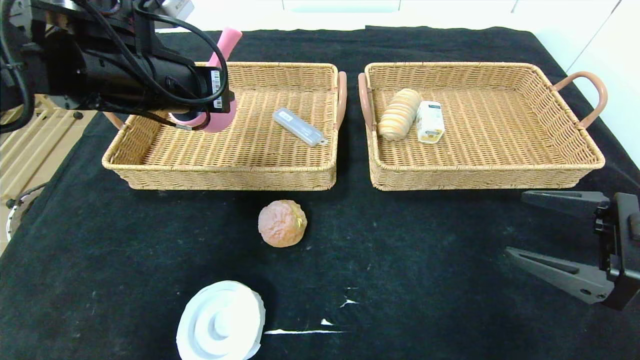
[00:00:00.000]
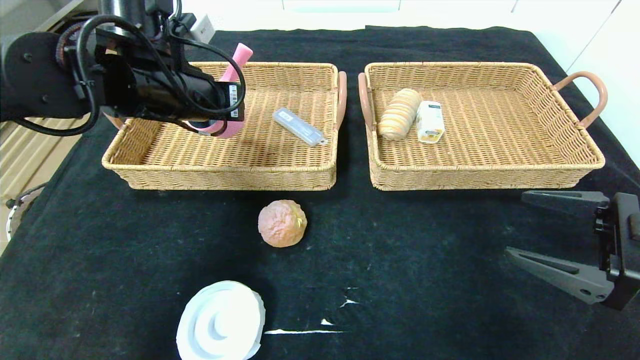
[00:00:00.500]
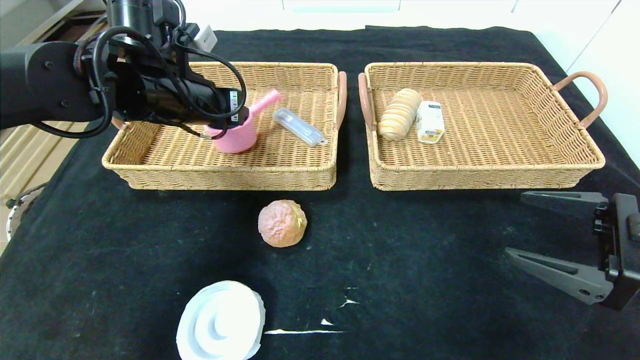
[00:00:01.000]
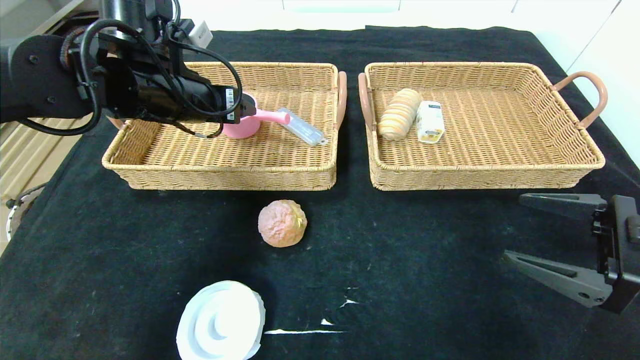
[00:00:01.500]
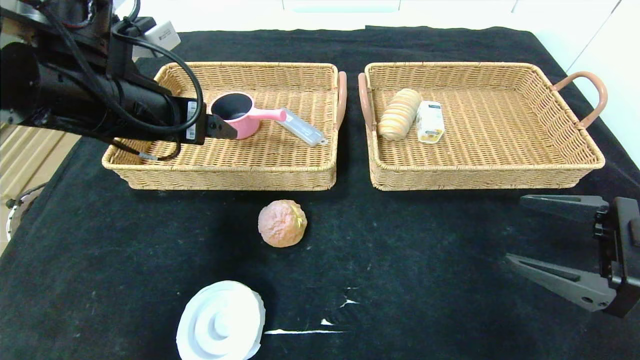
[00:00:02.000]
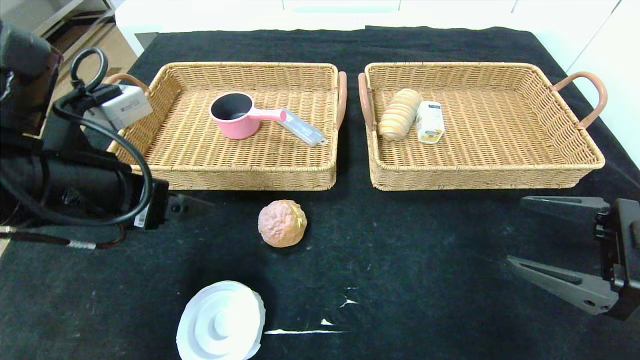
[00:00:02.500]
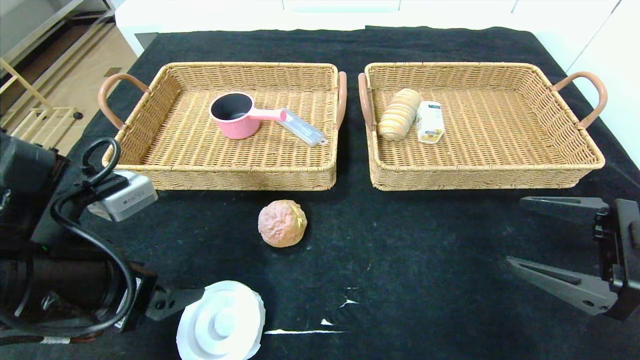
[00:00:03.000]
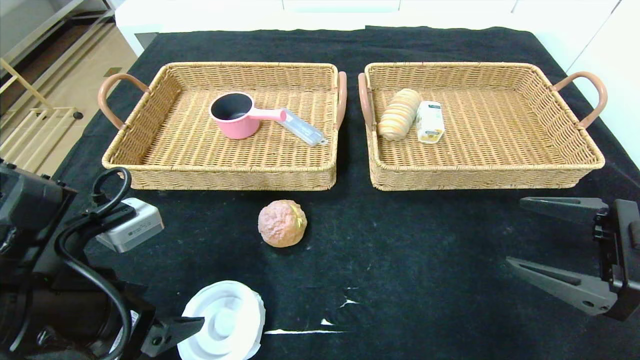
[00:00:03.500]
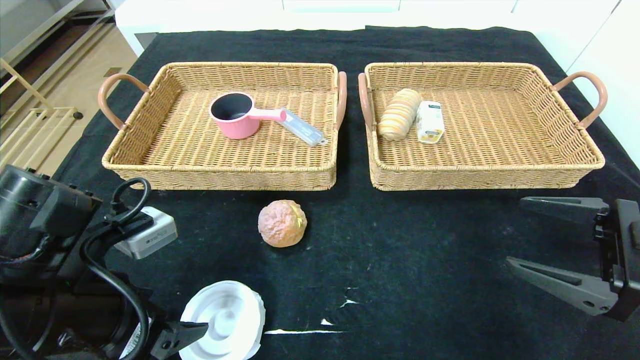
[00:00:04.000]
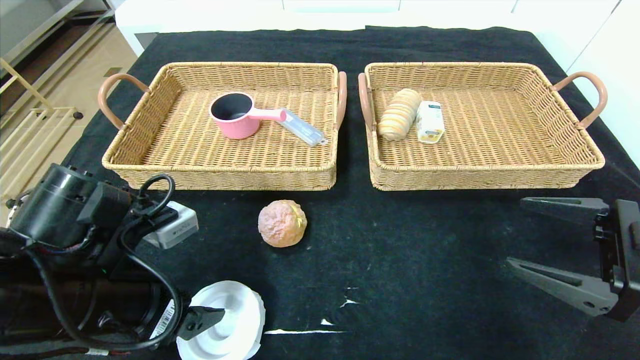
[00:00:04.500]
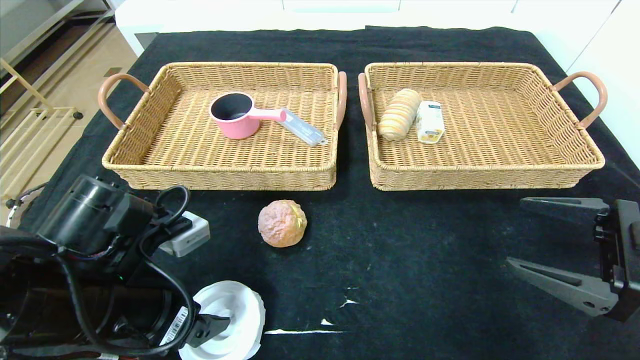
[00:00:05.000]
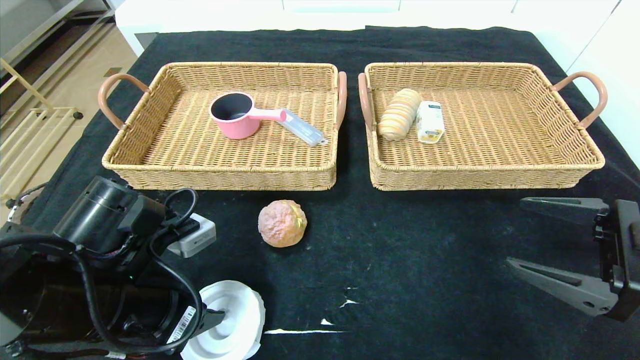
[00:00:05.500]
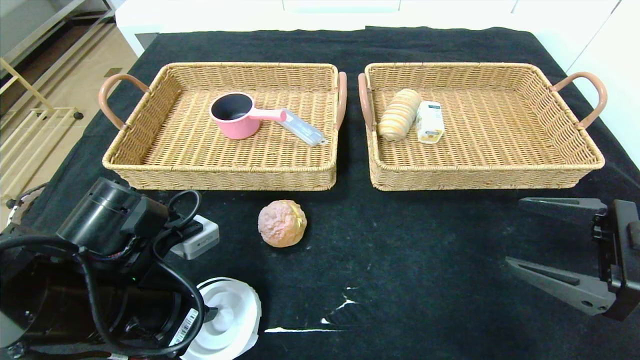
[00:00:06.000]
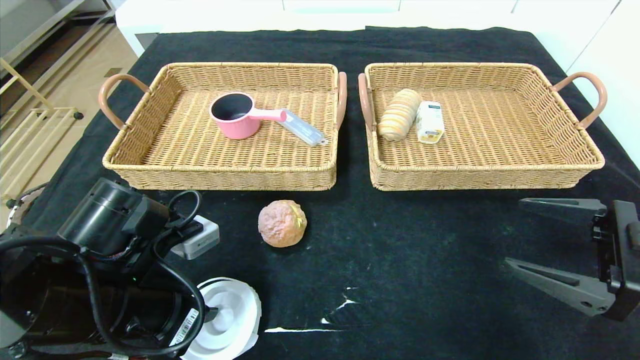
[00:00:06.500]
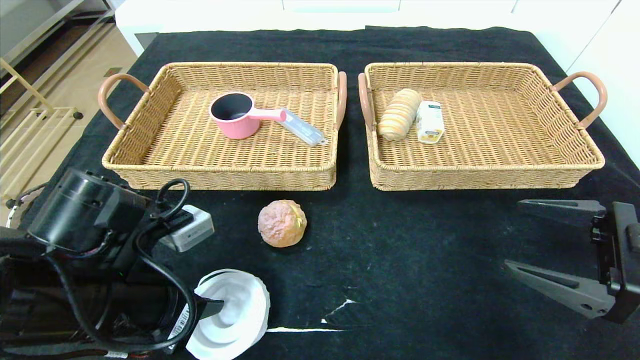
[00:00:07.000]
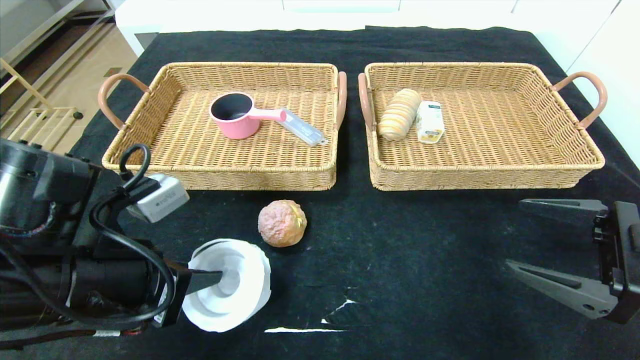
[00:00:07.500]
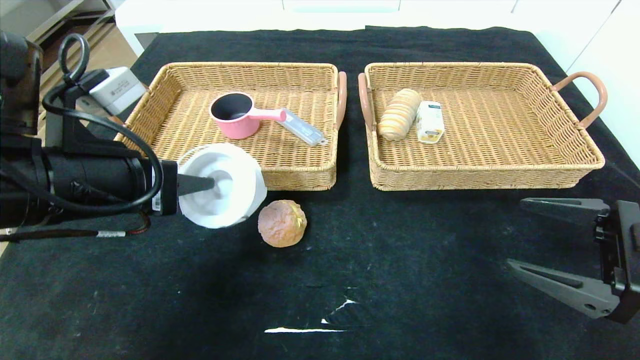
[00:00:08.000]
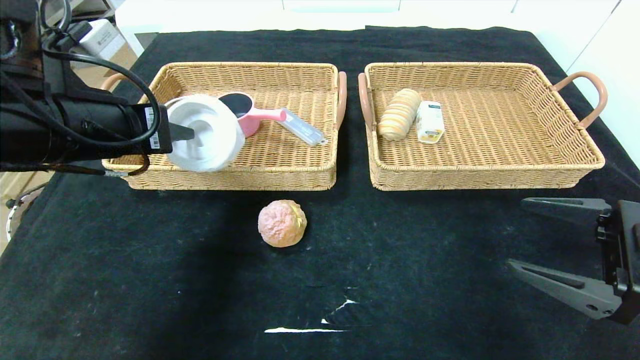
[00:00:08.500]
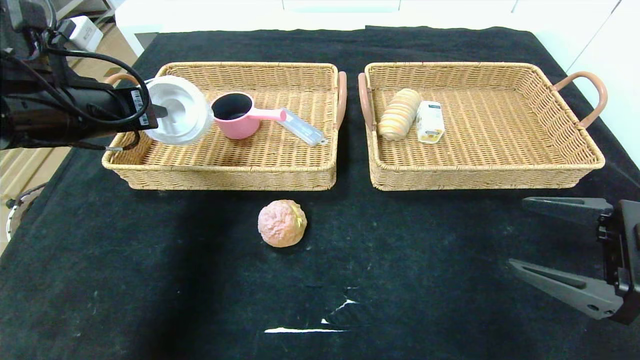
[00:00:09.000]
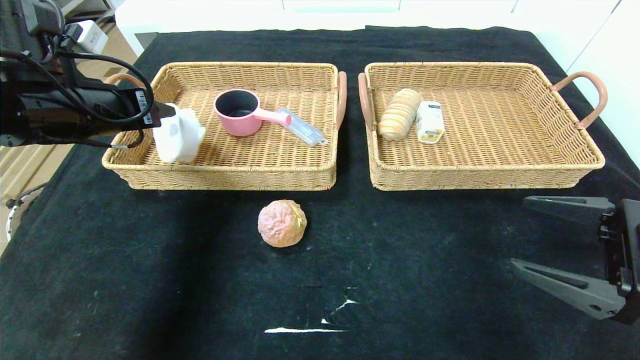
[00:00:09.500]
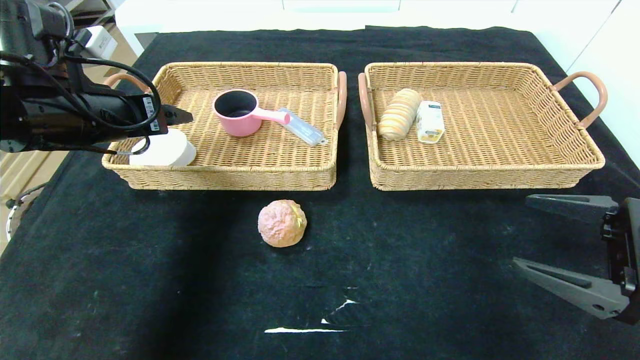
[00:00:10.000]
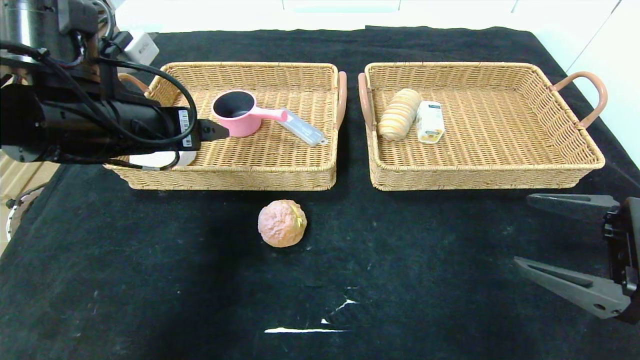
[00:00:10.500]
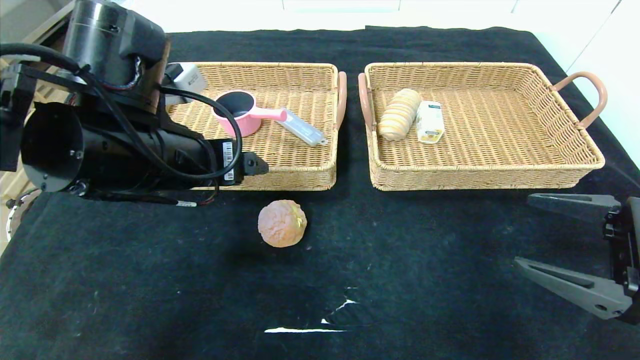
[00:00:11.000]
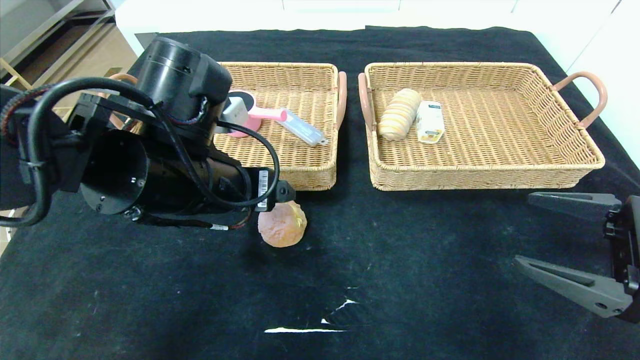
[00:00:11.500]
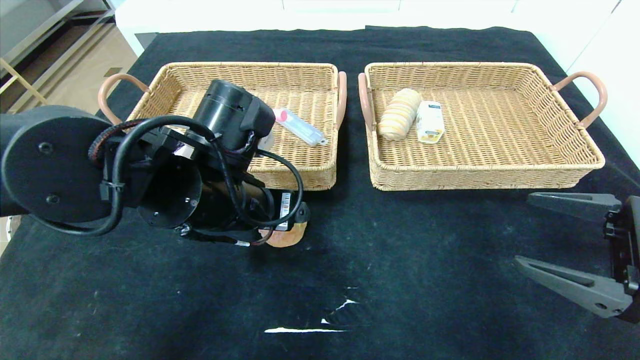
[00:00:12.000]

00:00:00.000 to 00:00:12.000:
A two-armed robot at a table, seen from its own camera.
Step, 00:00:01.500 to 00:00:09.500: Grasp the tape and put it in the left basket.
00:00:00.000 to 00:00:02.000: The left gripper opens up.
00:00:02.000 to 00:00:04.000: The left gripper travels downward and backward by approximately 15 cm.
00:00:04.000 to 00:00:06.000: The left gripper closes up.
00:00:06.000 to 00:00:08.000: The left gripper goes about 10 cm upward.
00:00:08.000 to 00:00:10.000: The left gripper travels forward and to the left by about 10 cm, and opens its fingers.
00:00:10.000 to 00:00:12.000: The left gripper moves to the right and downward, about 15 cm.

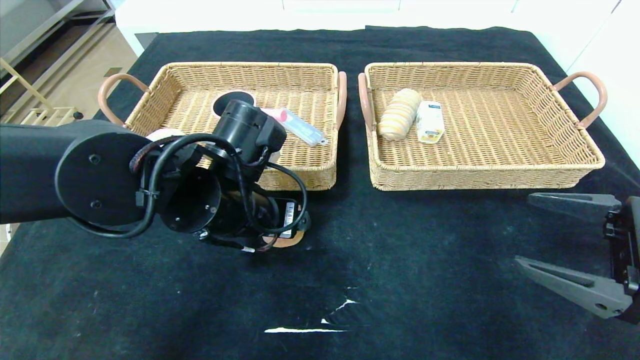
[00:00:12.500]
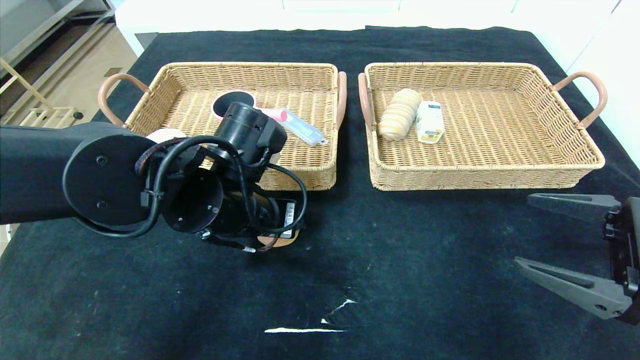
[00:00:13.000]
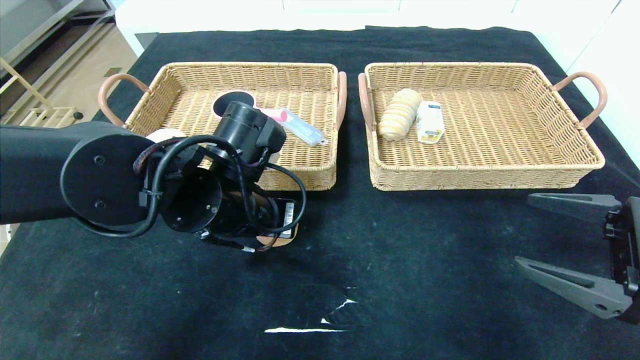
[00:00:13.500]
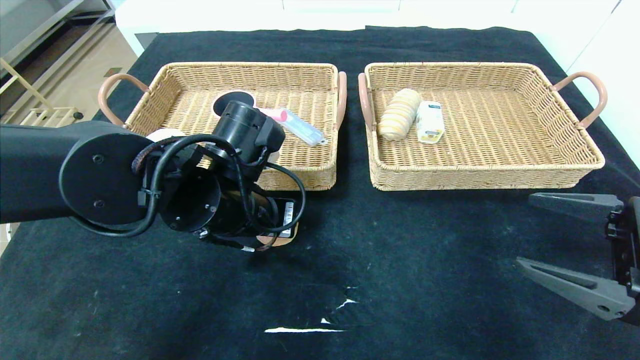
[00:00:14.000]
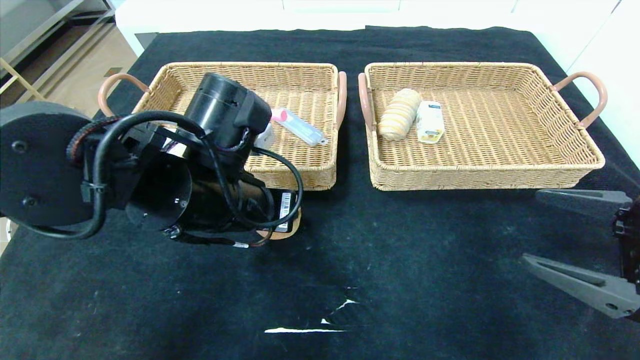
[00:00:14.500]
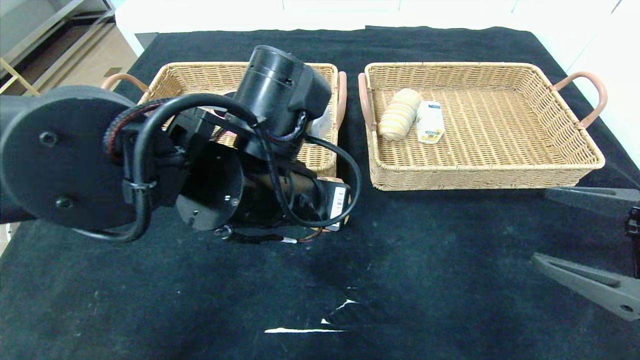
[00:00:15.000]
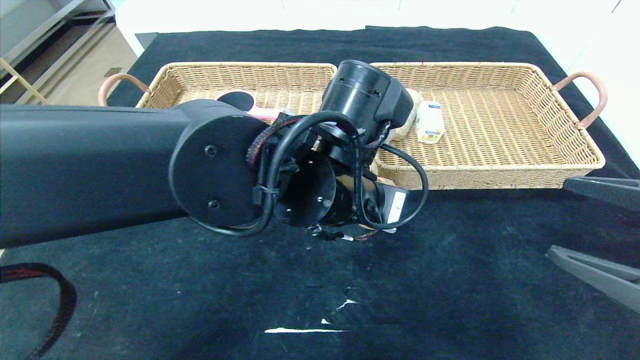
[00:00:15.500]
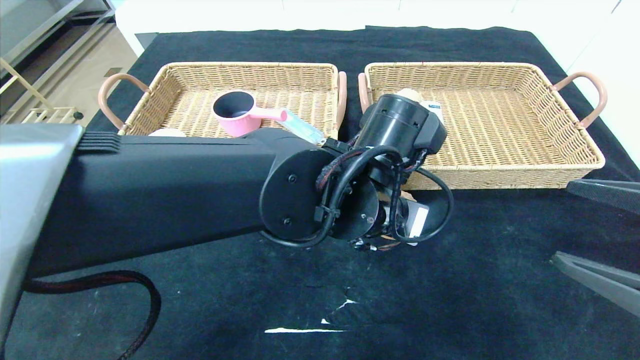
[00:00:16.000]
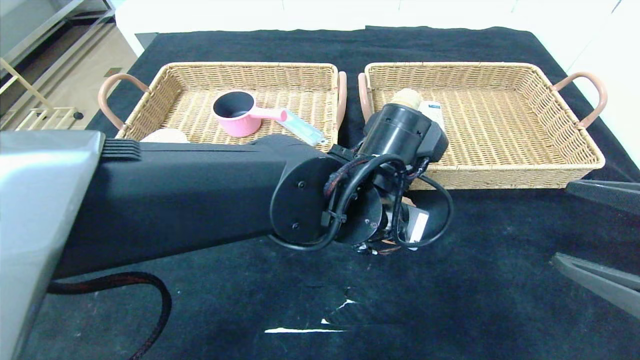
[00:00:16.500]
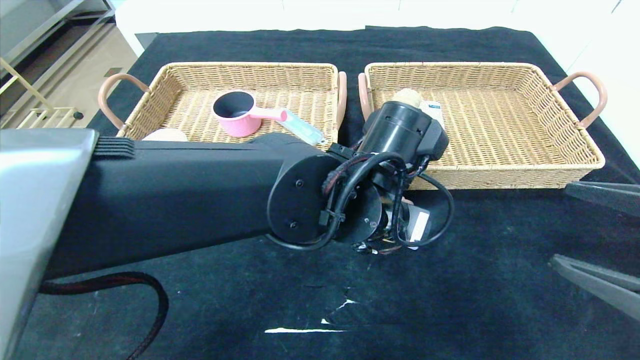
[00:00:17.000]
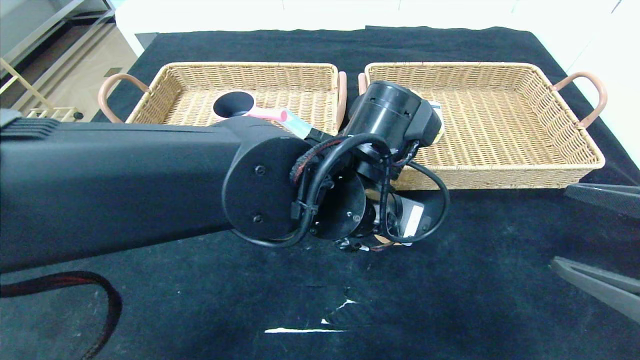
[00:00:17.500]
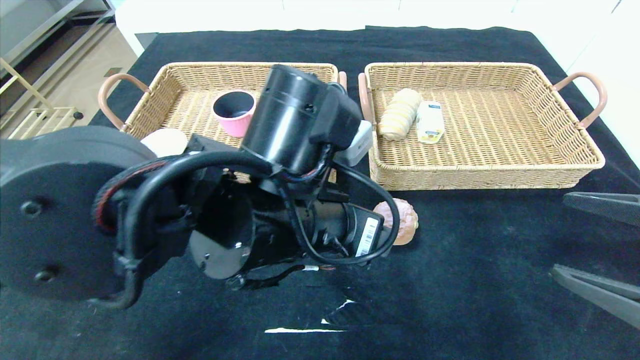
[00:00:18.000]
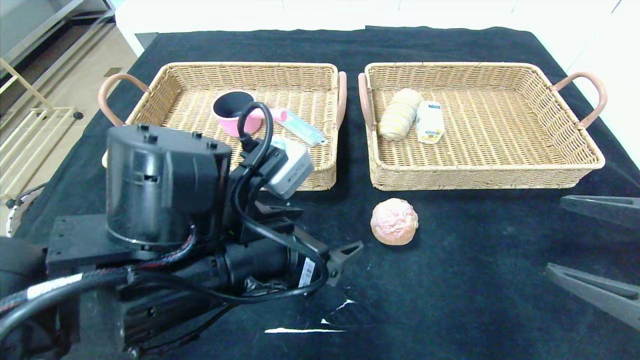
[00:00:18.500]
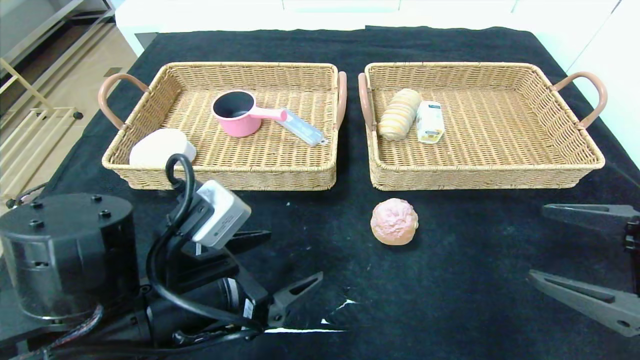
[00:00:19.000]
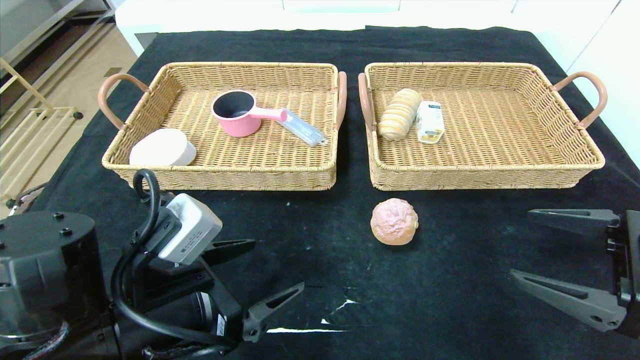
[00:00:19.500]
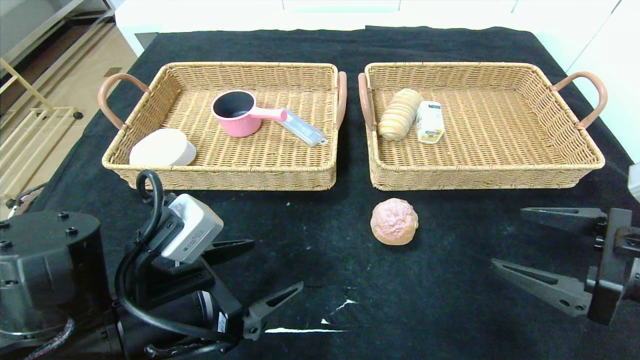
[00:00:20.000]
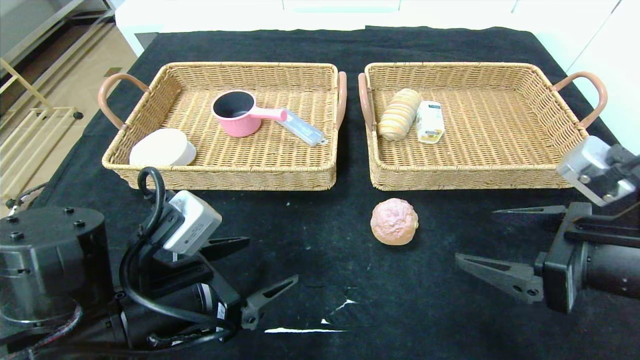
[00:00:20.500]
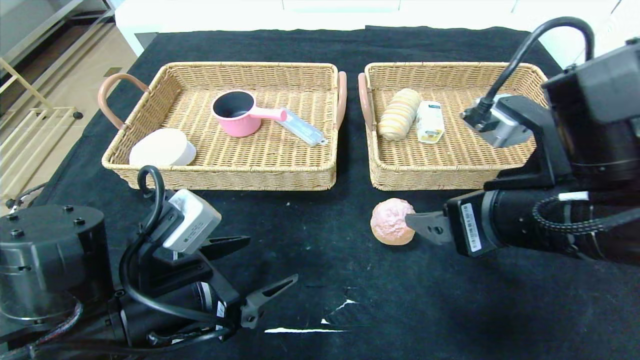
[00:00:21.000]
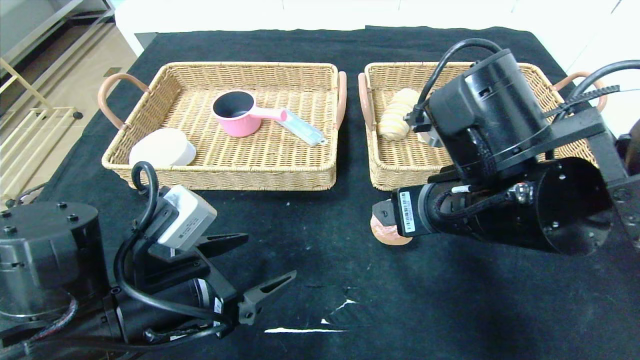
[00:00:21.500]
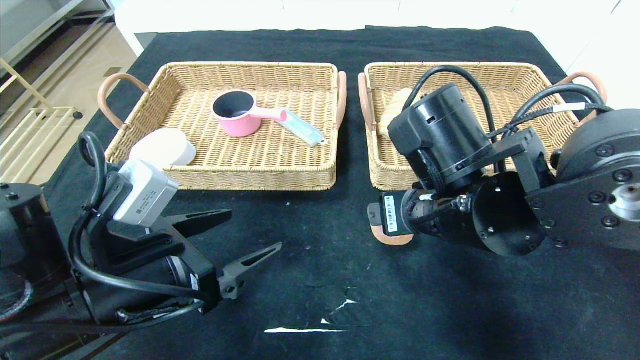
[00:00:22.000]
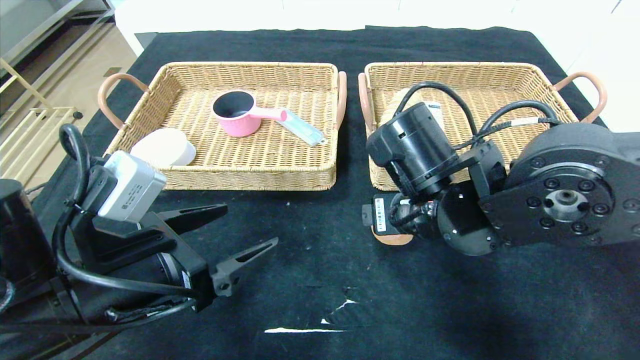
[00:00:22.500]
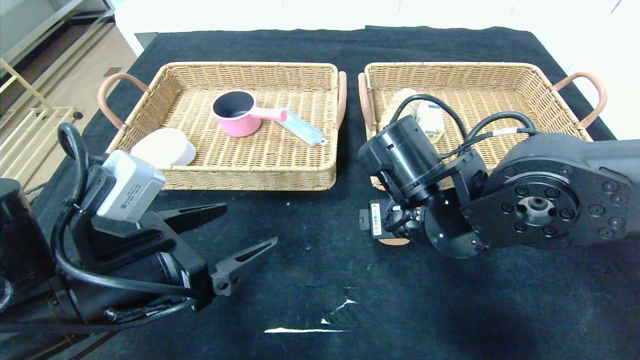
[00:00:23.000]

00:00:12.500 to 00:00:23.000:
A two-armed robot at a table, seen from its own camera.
Step, 00:00:12.500 to 00:00:17.000: Place the round bread in the center of the table.
00:00:12.500 to 00:00:14.500: The left gripper closes.
00:00:14.500 to 00:00:16.500: The left gripper is displaced to the right by approximately 15 cm.
00:00:16.500 to 00:00:19.000: The left gripper is displaced to the left and backward by about 20 cm, and opens its fingers.
00:00:19.000 to 00:00:21.000: The right gripper shifts approximately 15 cm to the left.
00:00:21.000 to 00:00:23.000: The right gripper heads to the left, forward and downward, covering about 10 cm.
